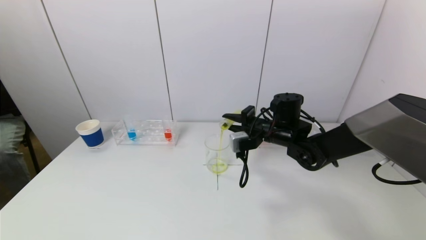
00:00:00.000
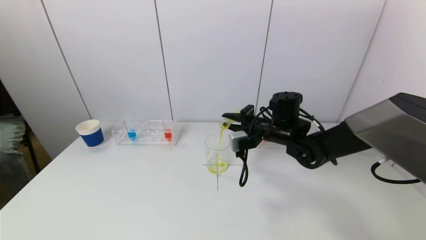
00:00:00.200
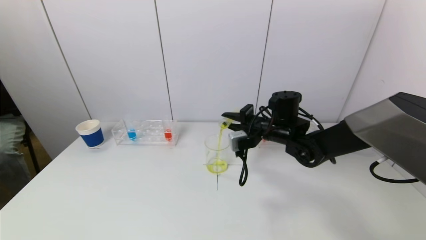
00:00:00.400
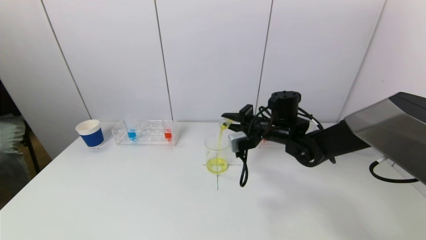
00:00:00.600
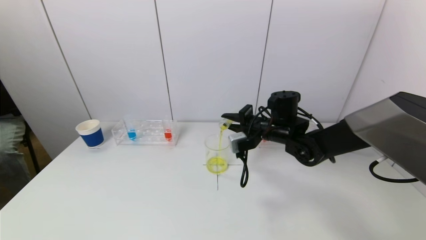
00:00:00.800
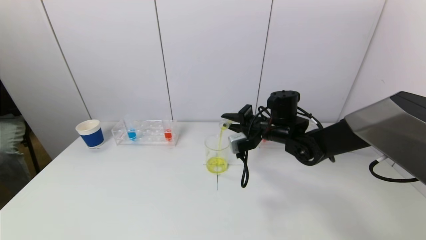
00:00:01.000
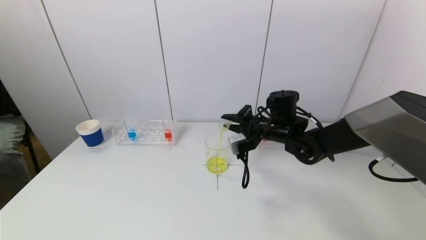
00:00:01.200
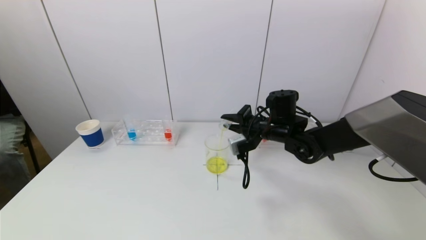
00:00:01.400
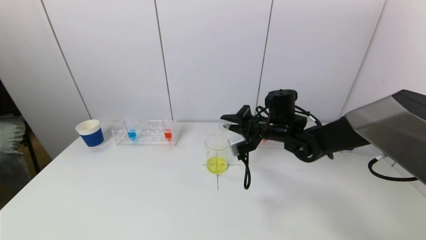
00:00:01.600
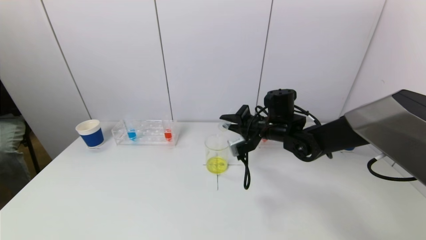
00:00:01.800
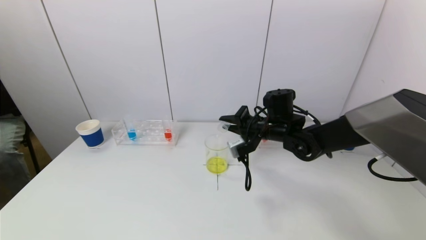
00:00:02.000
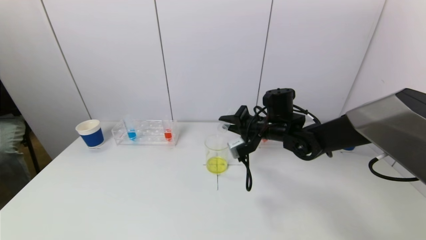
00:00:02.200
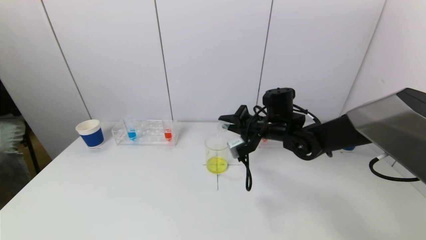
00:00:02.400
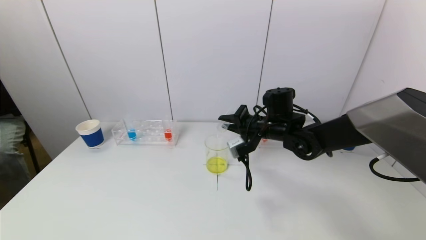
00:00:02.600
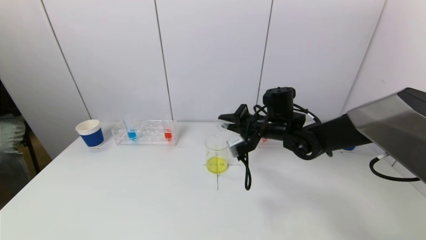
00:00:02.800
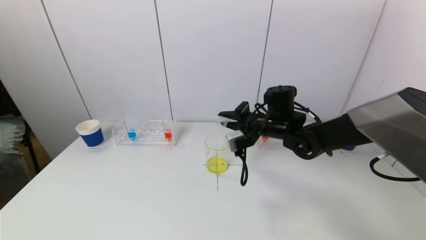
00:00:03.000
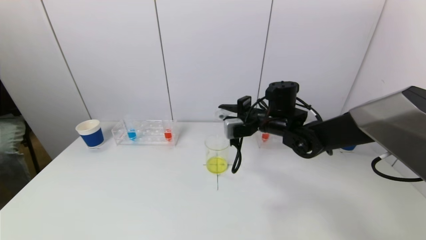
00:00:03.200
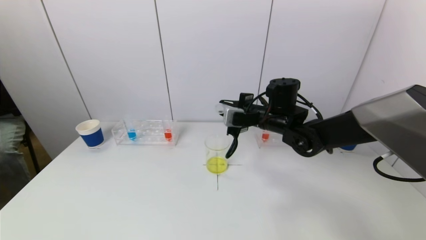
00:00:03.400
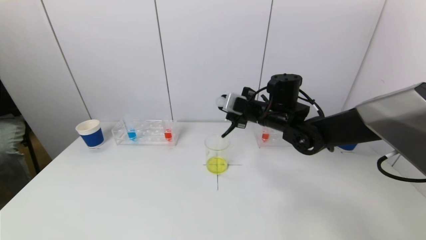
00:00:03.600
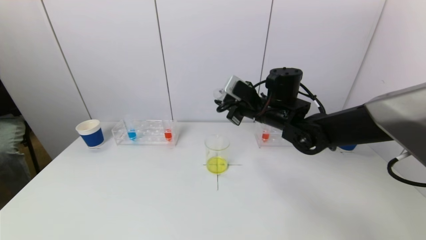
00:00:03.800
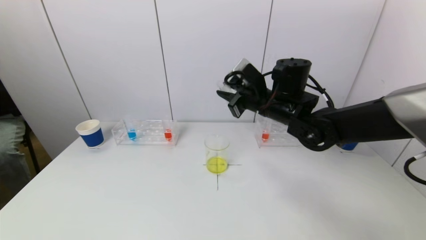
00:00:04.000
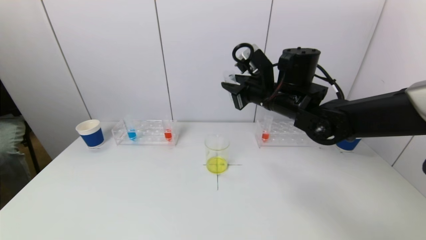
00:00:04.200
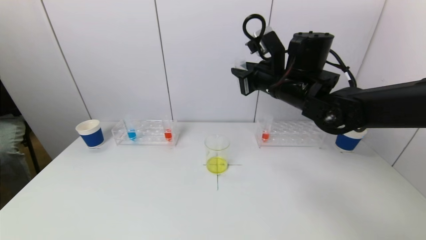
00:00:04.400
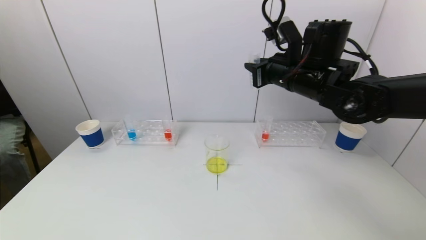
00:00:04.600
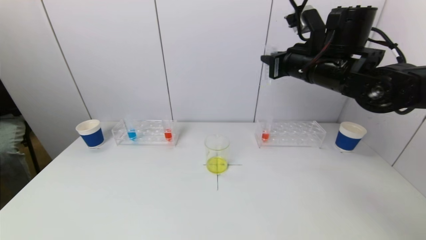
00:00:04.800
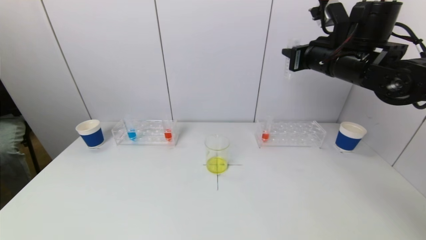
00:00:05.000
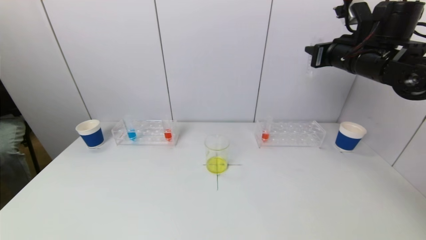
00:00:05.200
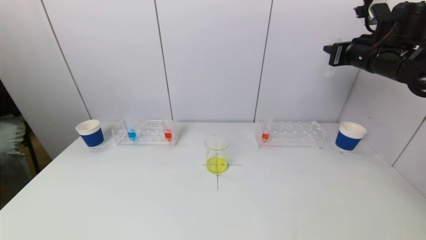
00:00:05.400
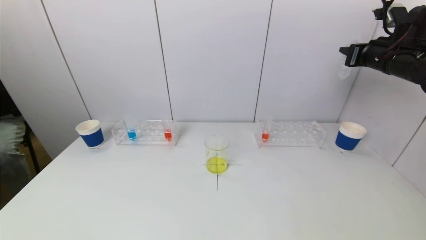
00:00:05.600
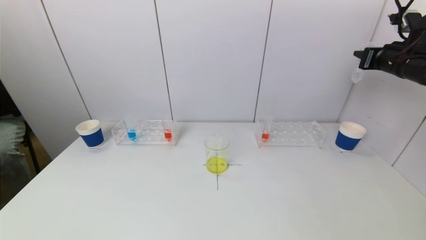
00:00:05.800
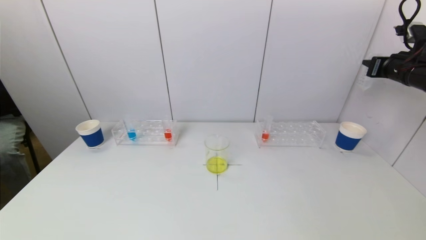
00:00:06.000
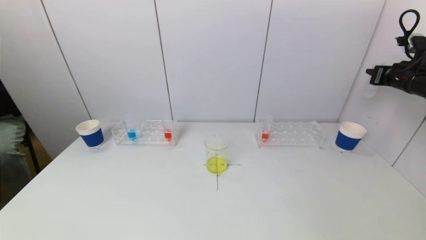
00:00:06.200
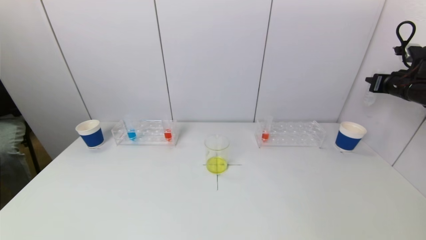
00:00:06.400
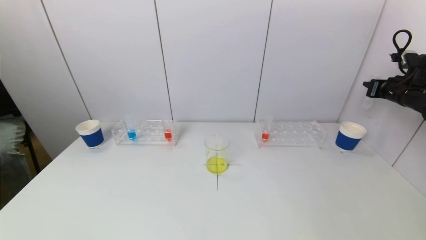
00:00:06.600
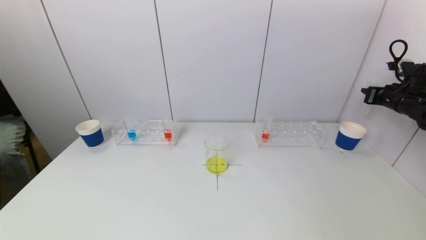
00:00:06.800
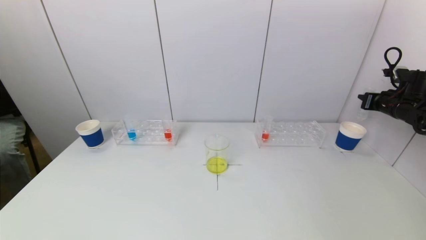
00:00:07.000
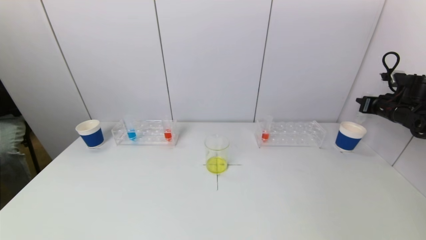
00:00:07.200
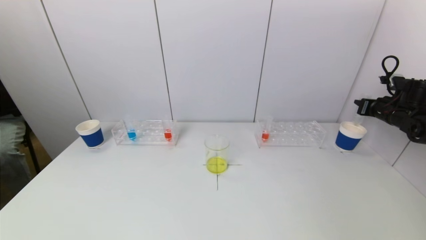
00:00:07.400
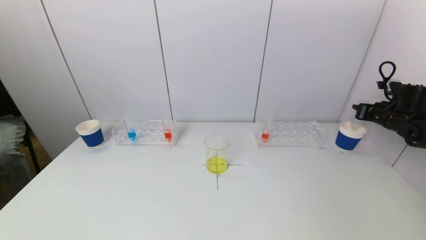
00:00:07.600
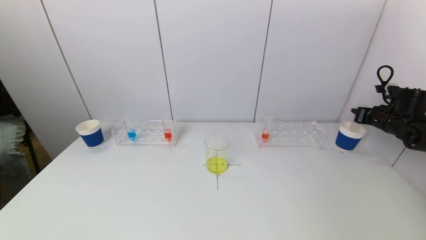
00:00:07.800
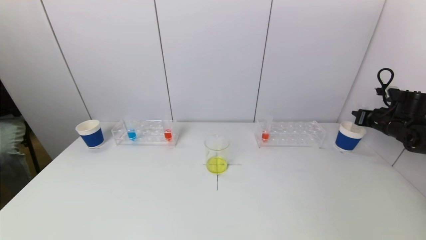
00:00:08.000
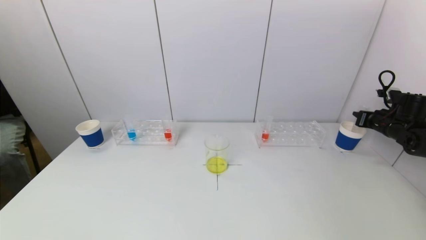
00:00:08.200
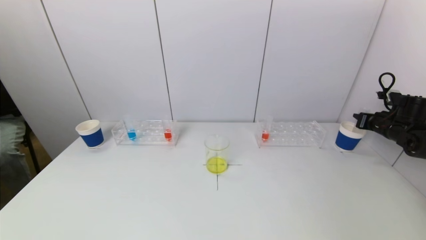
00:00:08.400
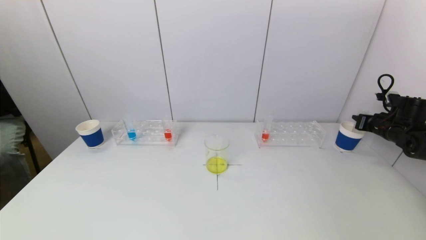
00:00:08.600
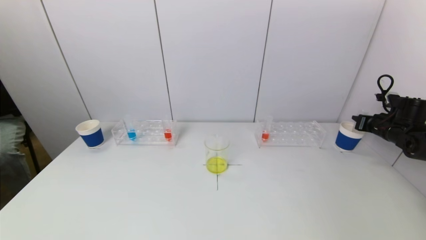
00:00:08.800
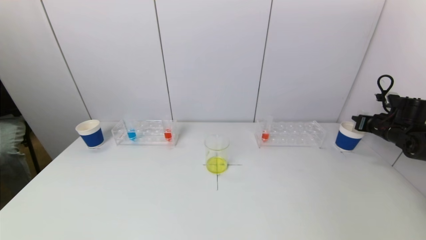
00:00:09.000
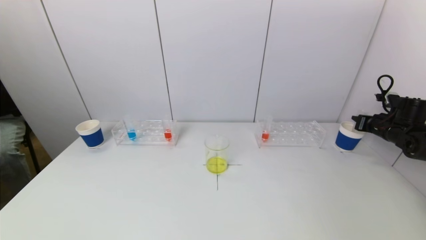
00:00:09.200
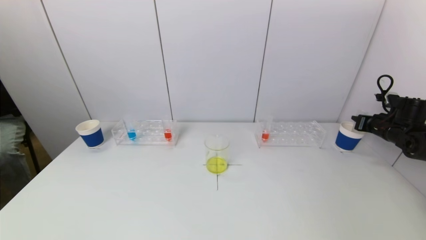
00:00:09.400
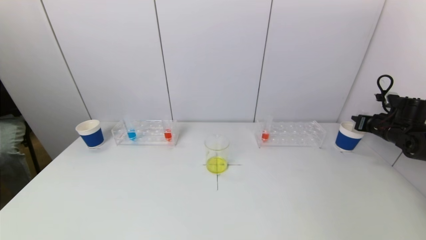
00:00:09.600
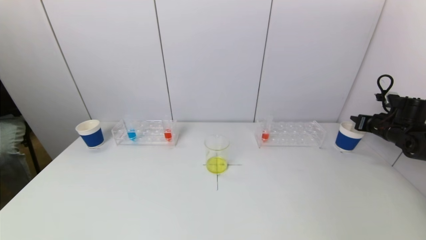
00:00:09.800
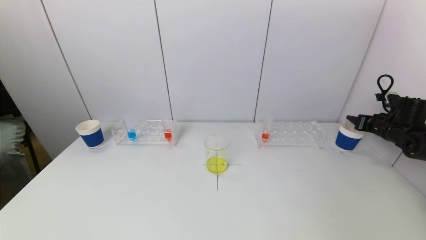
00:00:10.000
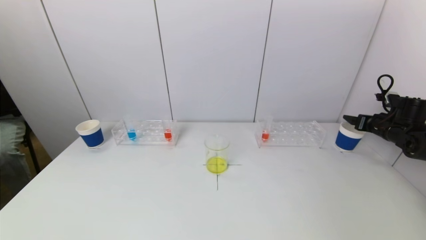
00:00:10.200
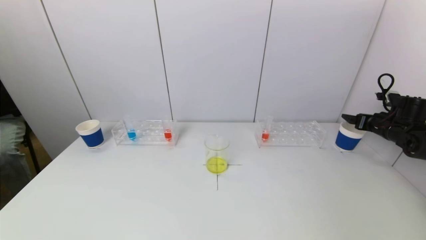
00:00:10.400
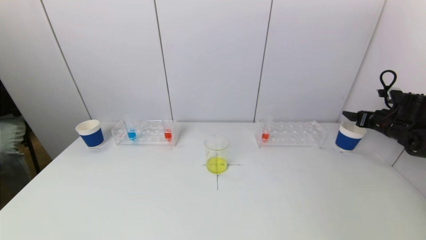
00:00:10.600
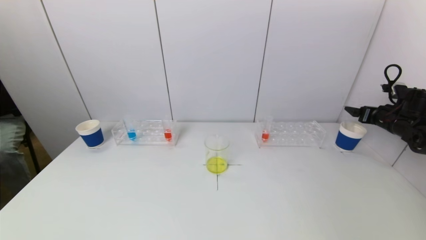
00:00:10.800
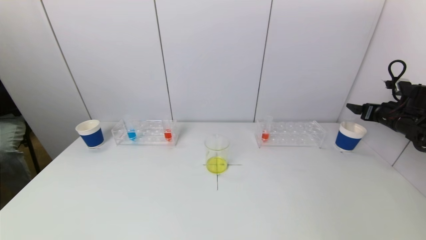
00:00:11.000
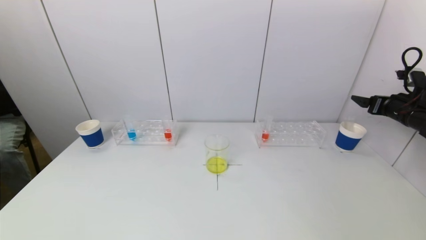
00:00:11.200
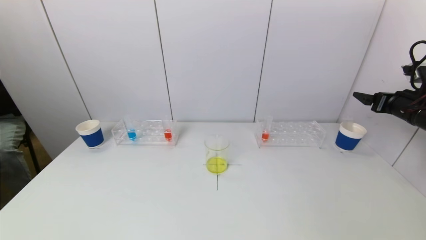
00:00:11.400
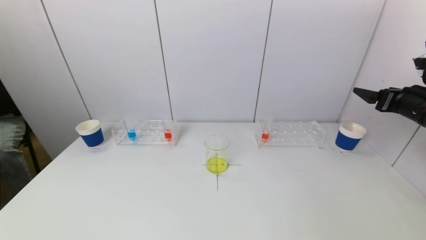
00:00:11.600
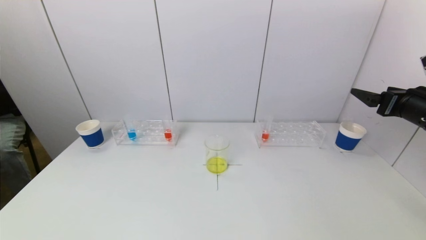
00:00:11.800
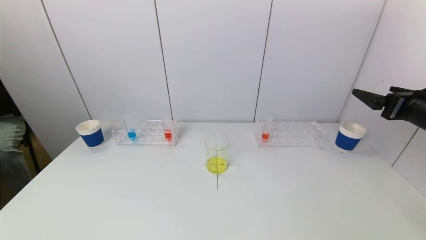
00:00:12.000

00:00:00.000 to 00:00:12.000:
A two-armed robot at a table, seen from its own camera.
Task of the whole recording: pick up a test tube with pigment on left test tube rack and a test tube with pigment on right test tube rack by grippers and pour them into the beaker.
Step, 00:00:00.000 to 00:00:03.000: Pour the yellow reagent into the graduated cylinder with the right gripper.
Step, 00:00:03.200 to 00:00:10.200: Place the test tube into the paper cup with the right gripper.
00:00:00.000 to 00:00:03.000: The grippers move only a little.
00:00:03.000 to 00:00:04.400: The right gripper travels upward by about 10 cm.
00:00:04.400 to 00:00:06.000: The right gripper shifts approximately 30 cm to the right.
00:00:06.000 to 00:00:07.600: The right gripper moves downward, some 15 cm.
00:00:07.600 to 00:00:09.000: The grippers move only a little.
00:00:09.000 to 00:00:10.400: The right gripper opens.
00:00:10.400 to 00:00:12.000: The right gripper heads backward, upward and to the left, covering roughly 25 cm.

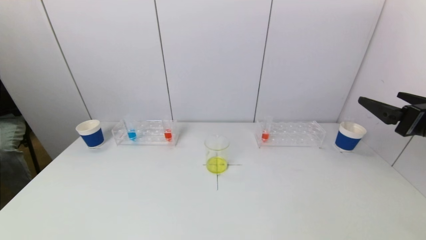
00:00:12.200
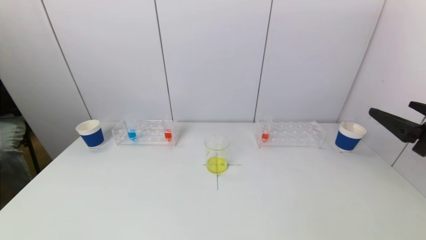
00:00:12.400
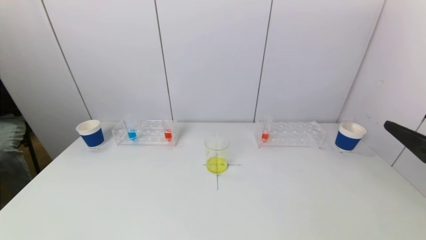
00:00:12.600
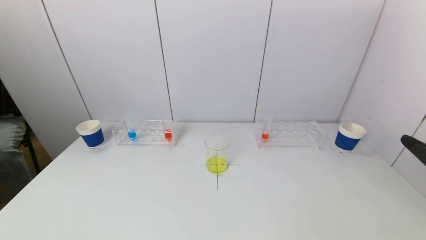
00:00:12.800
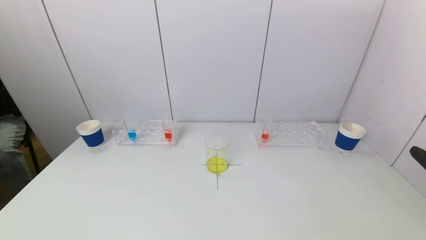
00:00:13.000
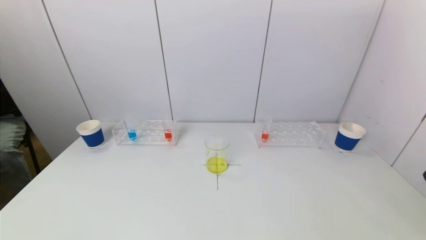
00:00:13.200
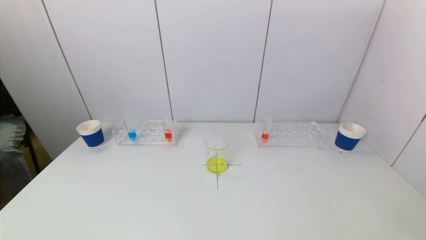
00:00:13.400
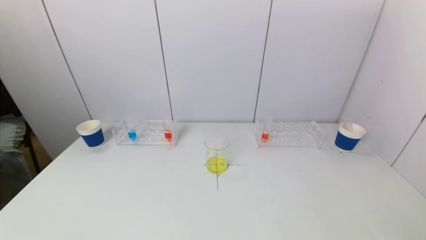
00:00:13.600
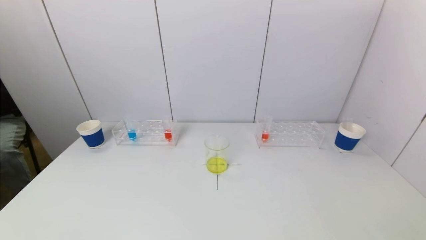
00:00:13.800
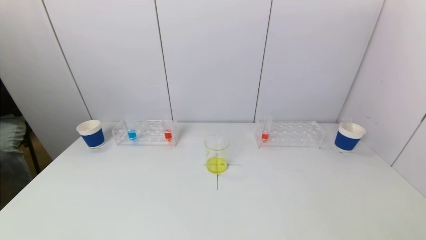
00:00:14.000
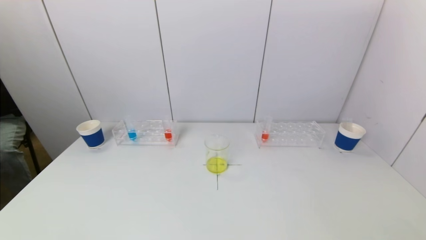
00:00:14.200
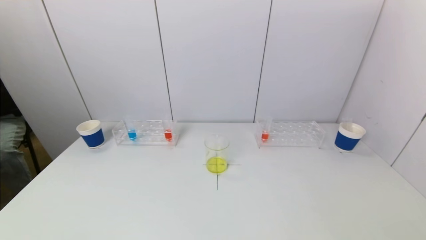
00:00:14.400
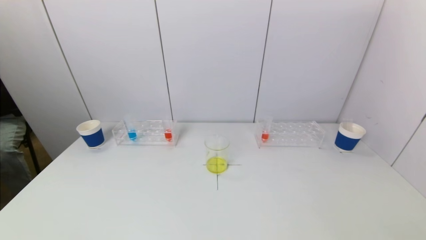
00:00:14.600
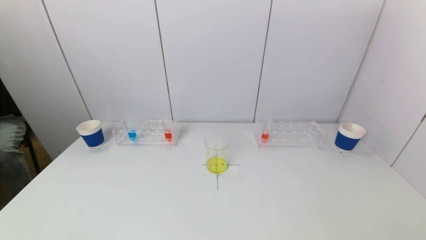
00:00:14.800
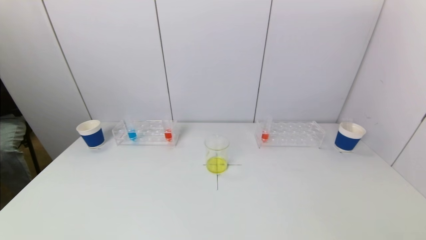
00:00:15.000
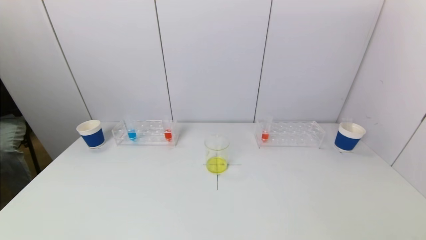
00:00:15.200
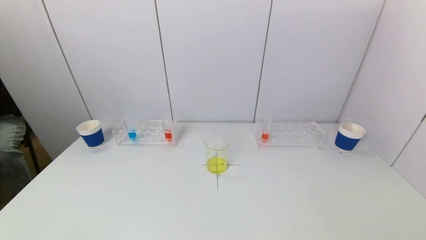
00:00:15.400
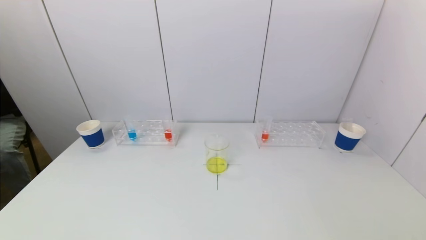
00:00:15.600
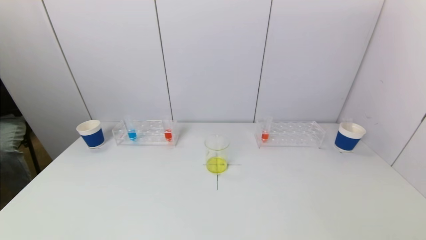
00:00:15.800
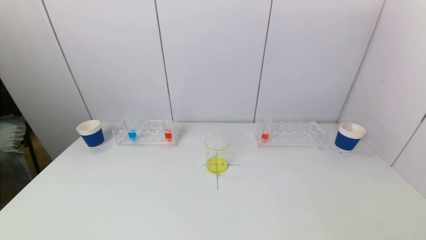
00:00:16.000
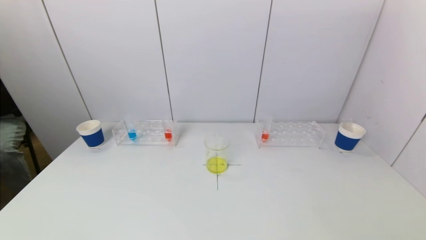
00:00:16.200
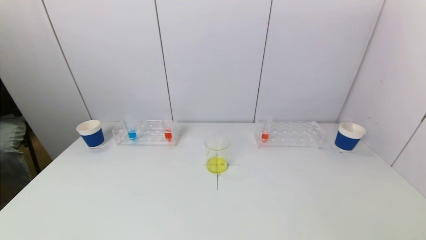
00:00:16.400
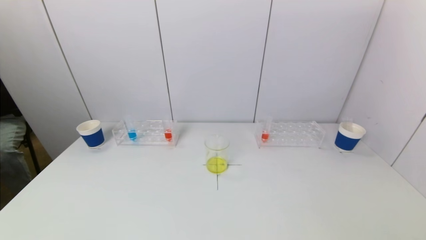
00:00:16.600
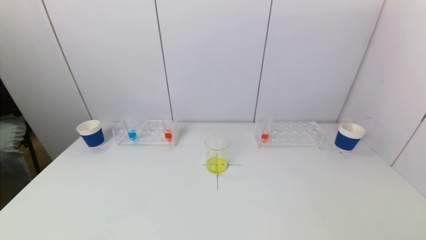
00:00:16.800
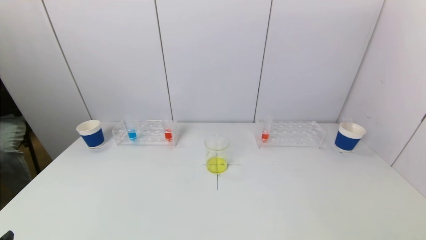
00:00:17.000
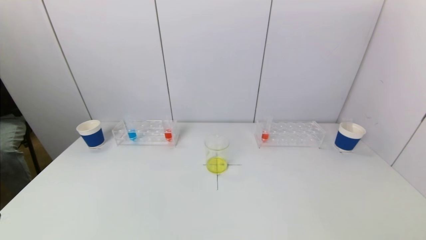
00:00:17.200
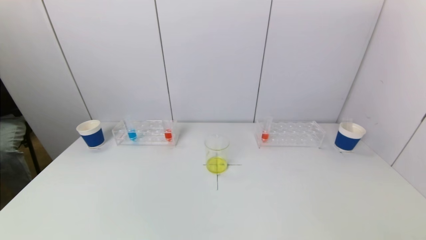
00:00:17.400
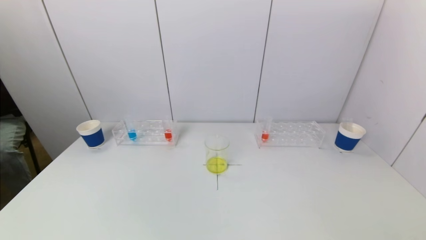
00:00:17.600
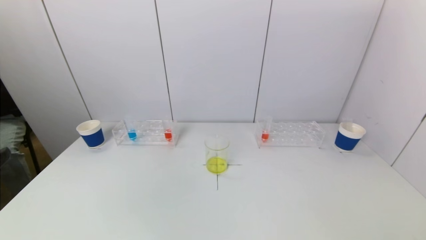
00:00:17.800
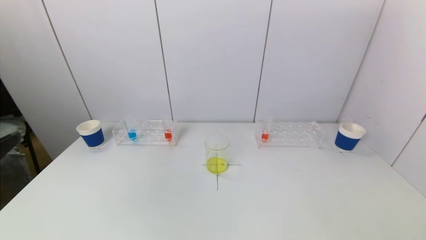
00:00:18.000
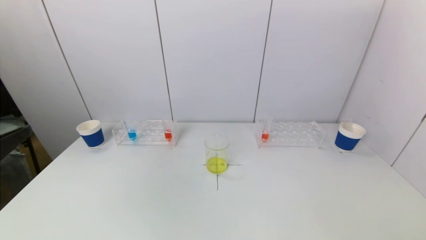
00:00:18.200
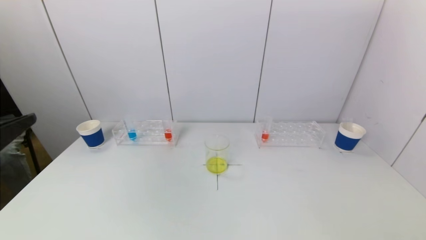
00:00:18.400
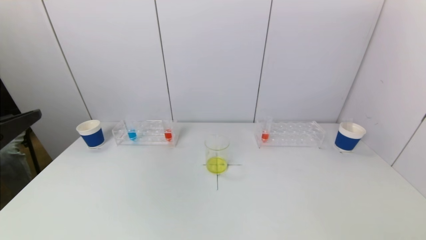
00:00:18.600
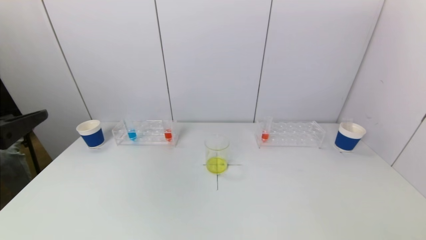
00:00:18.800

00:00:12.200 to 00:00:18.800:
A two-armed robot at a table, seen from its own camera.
Task of the whole recording: pick up a test tube with pigment on left test tube rack and a test tube with pigment on right test tube rack by grippers and pour them into the beaker.
00:00:12.200 to 00:00:13.800: The right gripper shifts approximately 25 cm backward and downward.
00:00:17.200 to 00:00:18.800: The left gripper moves forward and upward, some 15 cm.
